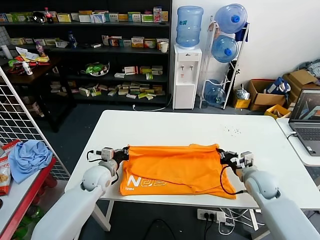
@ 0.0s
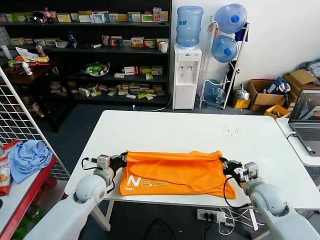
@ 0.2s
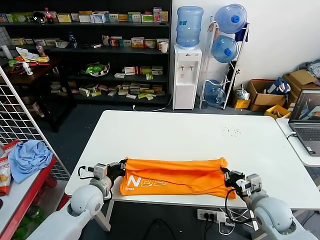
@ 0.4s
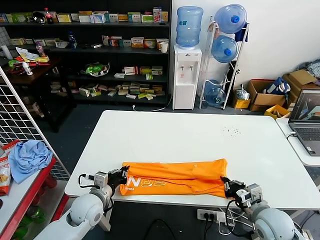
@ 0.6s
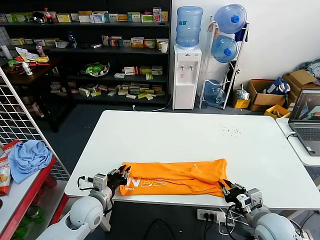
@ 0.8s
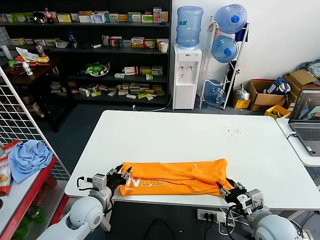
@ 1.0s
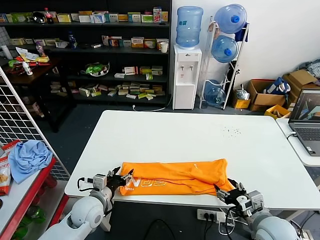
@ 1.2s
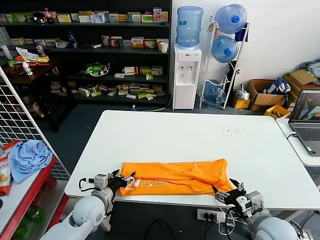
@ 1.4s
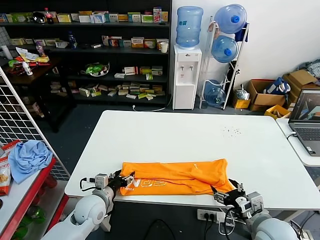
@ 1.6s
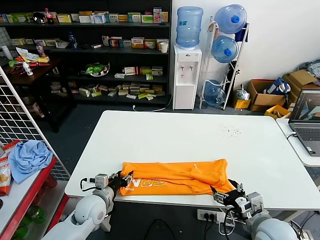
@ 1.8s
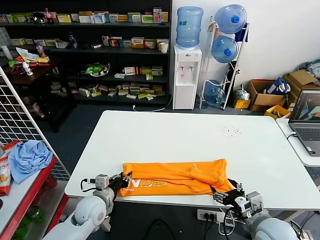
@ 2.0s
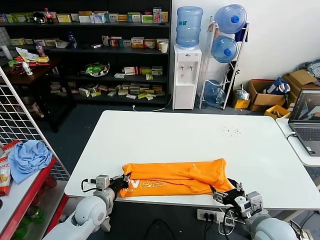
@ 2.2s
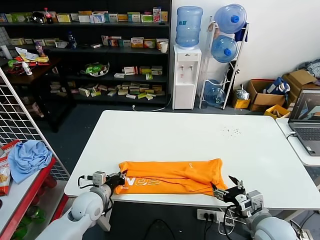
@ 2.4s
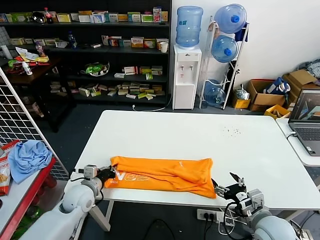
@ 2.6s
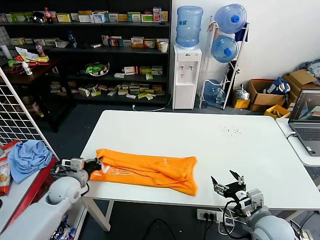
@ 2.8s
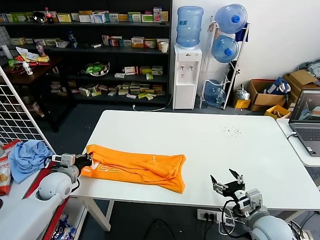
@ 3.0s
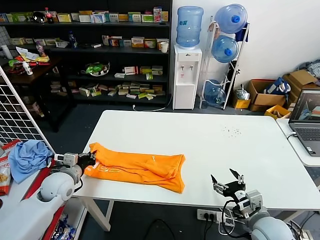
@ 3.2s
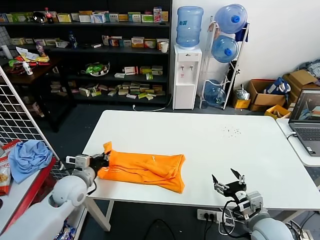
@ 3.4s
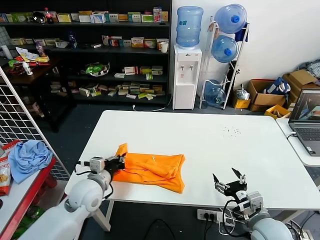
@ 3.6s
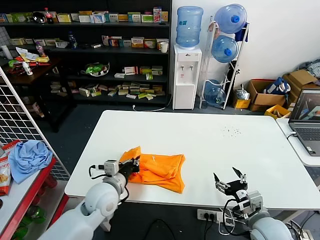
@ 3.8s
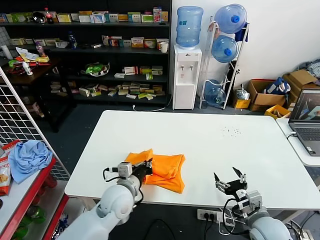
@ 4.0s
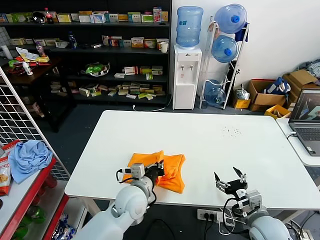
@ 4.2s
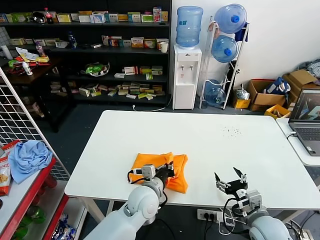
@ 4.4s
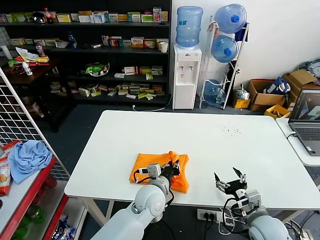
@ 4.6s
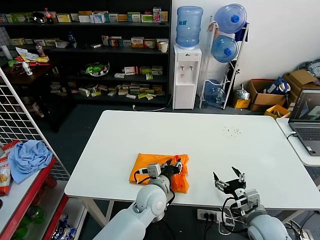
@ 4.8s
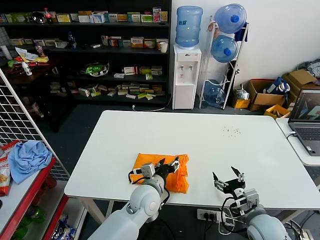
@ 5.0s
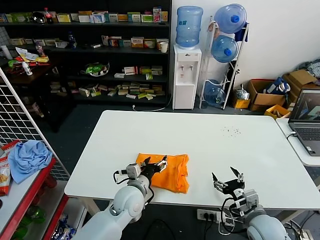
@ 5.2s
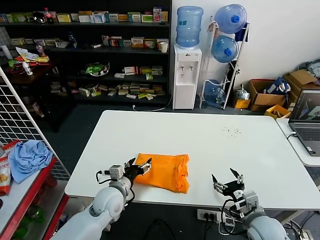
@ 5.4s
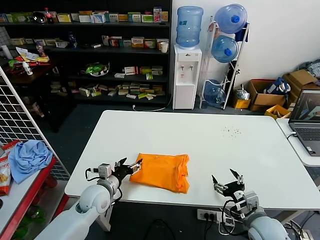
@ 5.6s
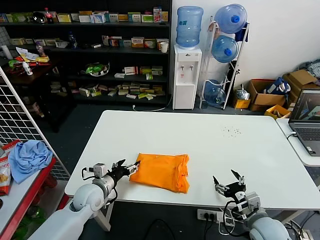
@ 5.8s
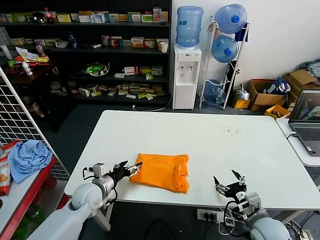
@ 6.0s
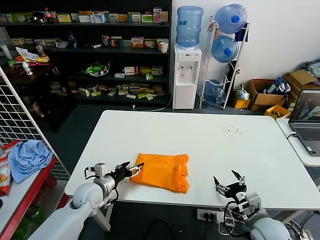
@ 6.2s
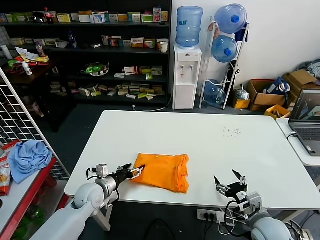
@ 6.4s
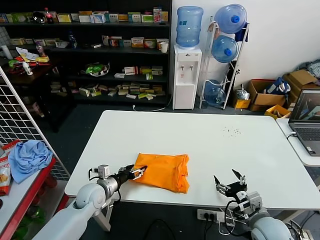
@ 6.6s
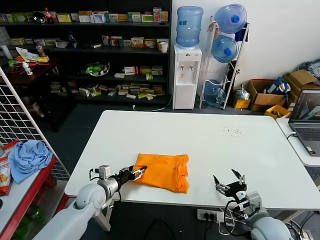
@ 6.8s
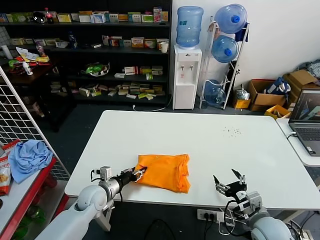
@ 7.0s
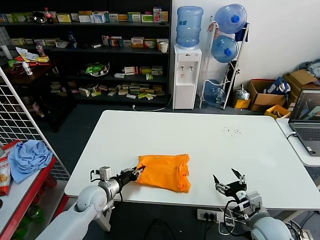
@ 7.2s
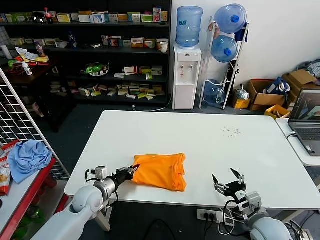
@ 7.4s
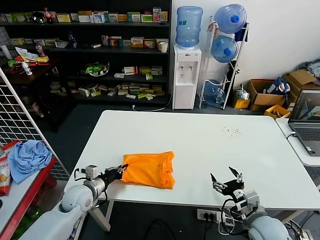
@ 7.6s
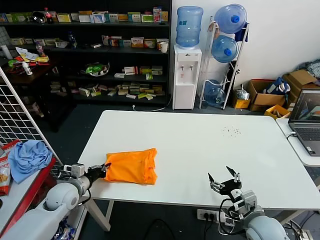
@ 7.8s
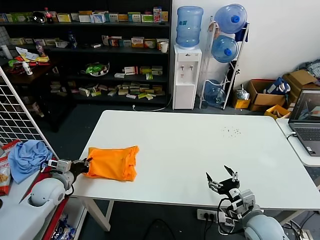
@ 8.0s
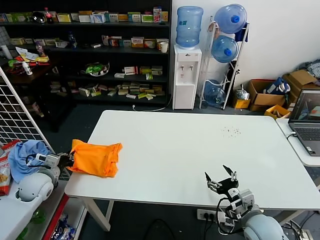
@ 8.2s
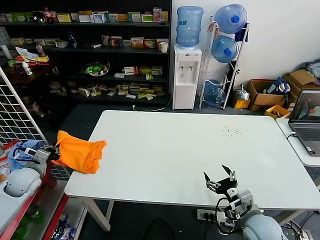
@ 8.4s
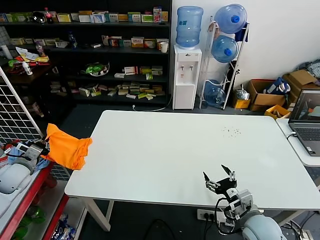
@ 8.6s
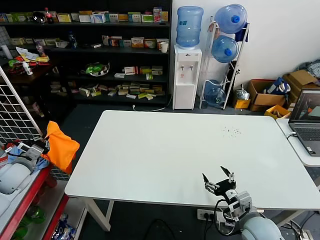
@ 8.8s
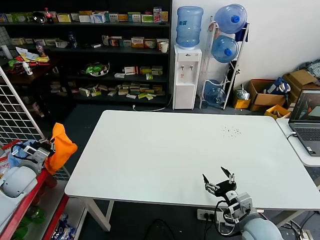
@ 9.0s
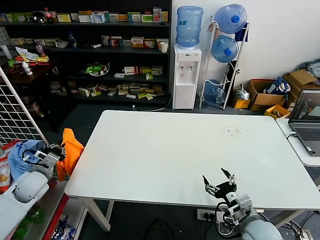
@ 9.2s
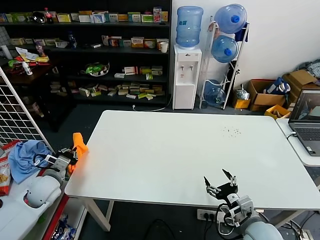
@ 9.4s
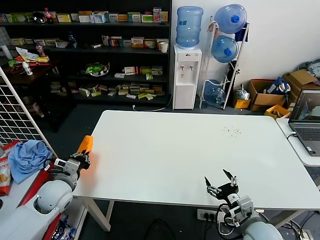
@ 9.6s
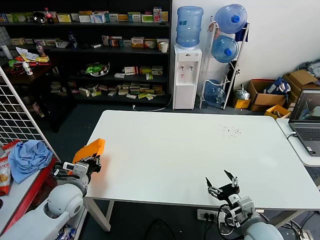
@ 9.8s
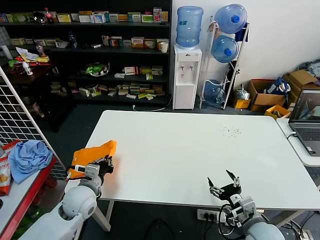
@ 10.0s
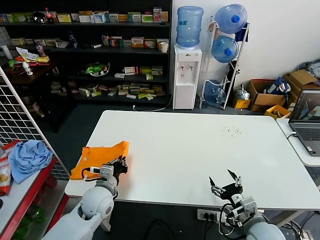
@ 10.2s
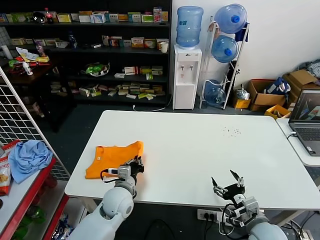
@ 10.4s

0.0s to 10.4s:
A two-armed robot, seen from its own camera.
Task of the whole recording: fold and organize the clothes.
Step, 0.0s to 0.8s: use both grippers to drag the upper edge of the fabric backward and fold it over the lower edge.
Step, 1.0s to 2.2s: use the left gripper to clamp the left edge of the fabric.
Step, 2.4s to 4.8s: use the left gripper to drag the left edge of the fabric to the left and folds it over the right edge.
0.0s to 1.4s: The two grippers go roughly 15 cm backward. The left gripper opens up. The right gripper opens its fingers.
1.4s to 3.0s: The left gripper is displaced to the left and forward by about 15 cm, and closes its fingers.
3.0s to 4.4s: The left gripper goes approximately 30 cm to the right.
4.4s to 6.0s: The left gripper is displaced to the left by approximately 20 cm, and opens up.
6.0s to 7.4s: The left gripper closes.
7.4s to 9.0s: The left gripper goes roughly 25 cm to the left and upward.
9.0s to 10.4s: The left gripper heads to the right, covering some 30 cm.

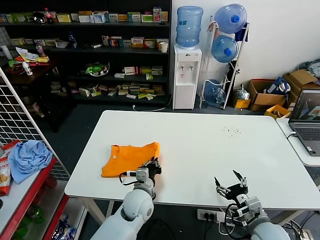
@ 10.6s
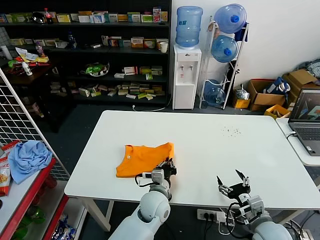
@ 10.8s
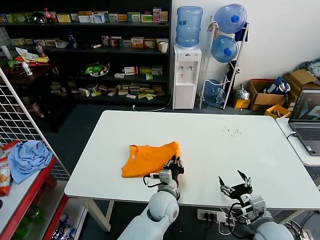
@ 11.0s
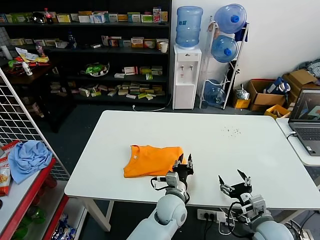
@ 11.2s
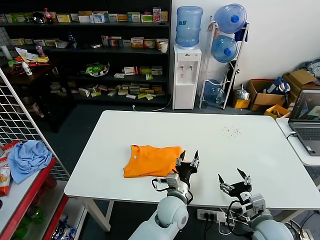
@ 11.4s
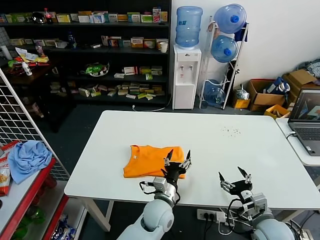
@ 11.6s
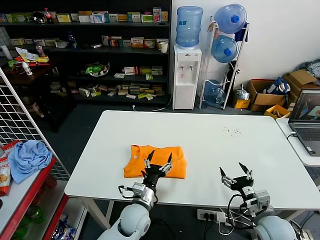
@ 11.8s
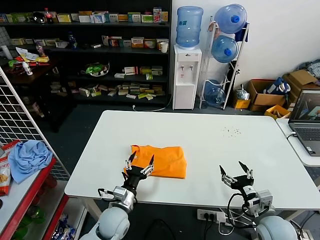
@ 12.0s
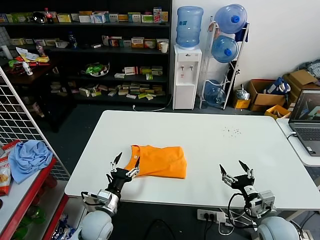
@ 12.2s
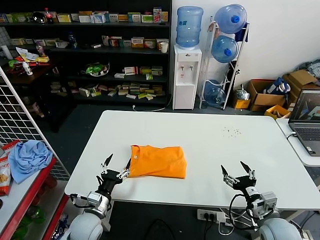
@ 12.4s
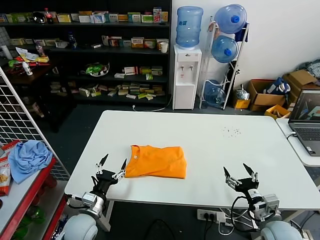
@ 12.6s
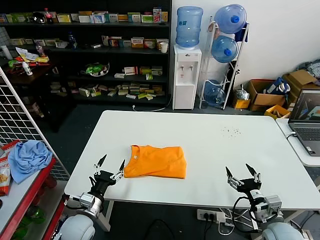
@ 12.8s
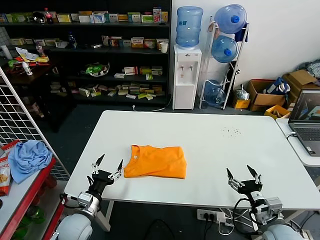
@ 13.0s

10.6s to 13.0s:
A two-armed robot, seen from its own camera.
Task of the whole recording: fold and organize the clothes.
10.6s to 11.8s: The left gripper goes to the right and returns, approximately 15 cm each way, and opens up.
11.8s to 13.0s: The left gripper heads to the left, covering approximately 20 cm.
